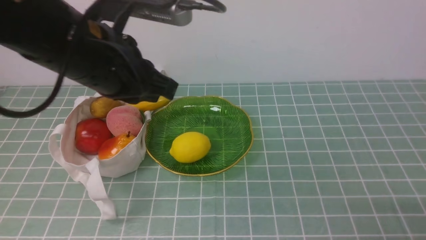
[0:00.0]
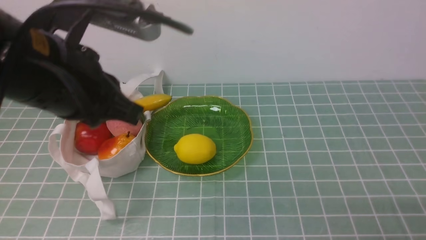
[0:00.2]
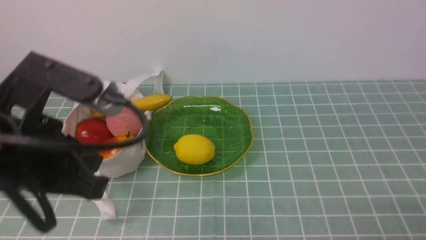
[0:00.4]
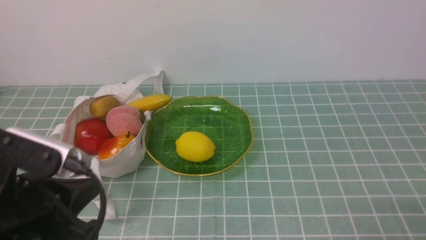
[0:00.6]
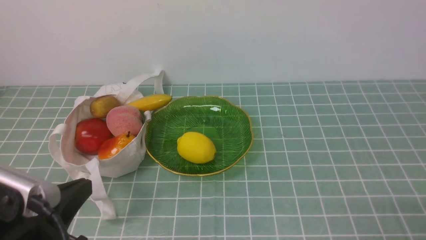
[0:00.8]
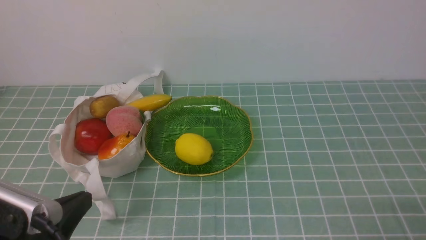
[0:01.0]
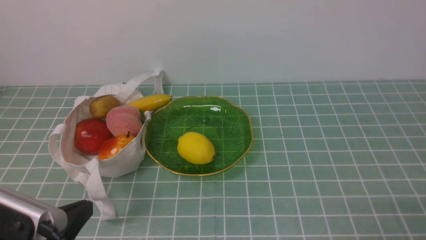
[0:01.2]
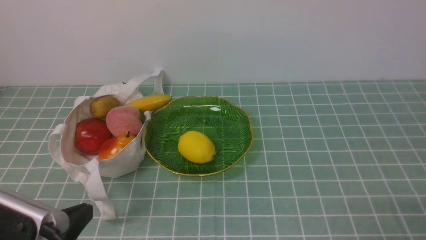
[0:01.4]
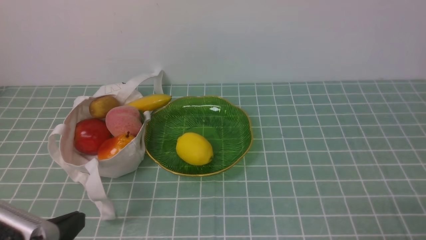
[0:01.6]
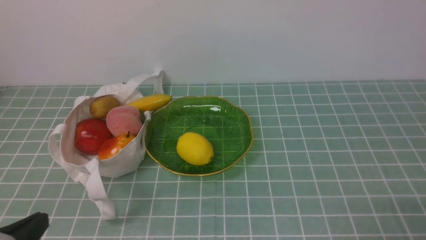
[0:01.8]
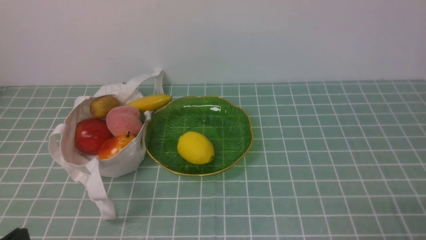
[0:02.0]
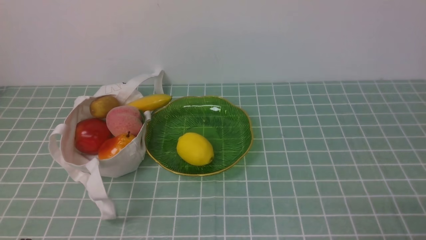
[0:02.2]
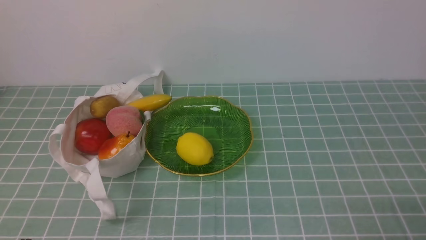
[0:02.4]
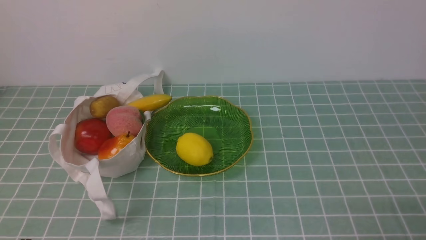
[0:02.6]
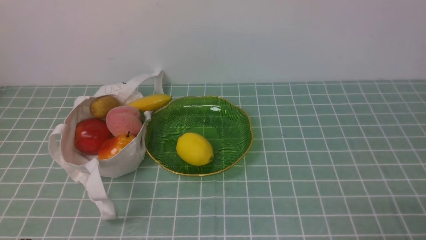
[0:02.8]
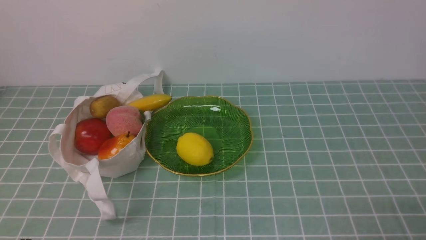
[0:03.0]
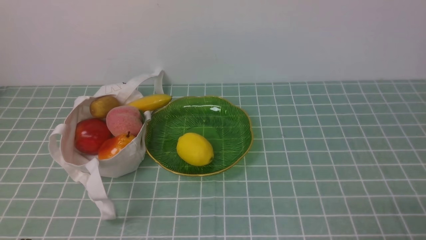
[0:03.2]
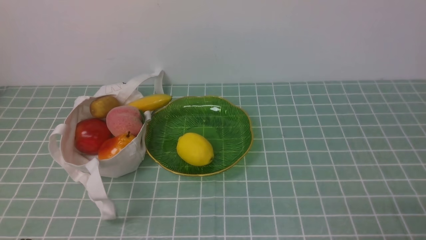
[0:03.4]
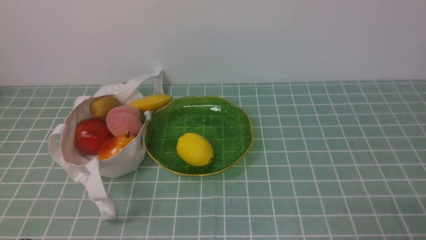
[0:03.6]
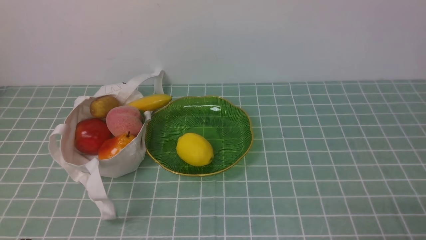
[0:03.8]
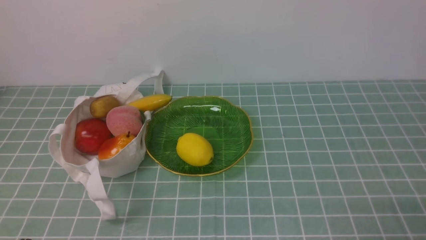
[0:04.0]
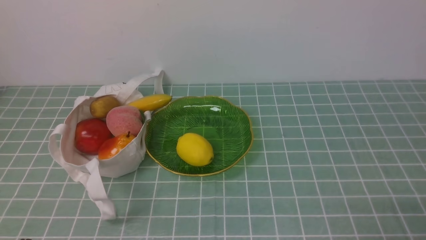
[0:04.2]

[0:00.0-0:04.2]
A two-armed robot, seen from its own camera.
0:00.0 to 0:01.4: The left gripper travels backward, downward and to the left by some 25 cm.
0:01.4 to 0:02.8: The left gripper shifts approximately 5 cm downward.
0:02.8 to 0:04.2: Both grippers stay put.
